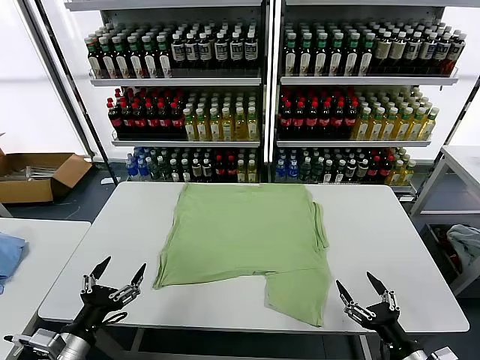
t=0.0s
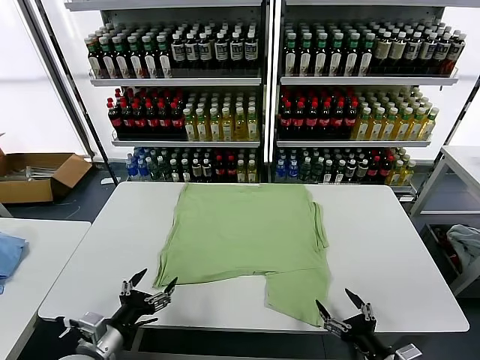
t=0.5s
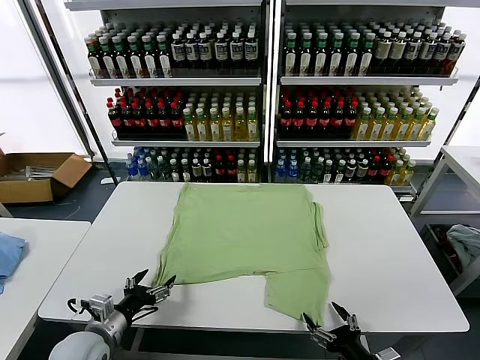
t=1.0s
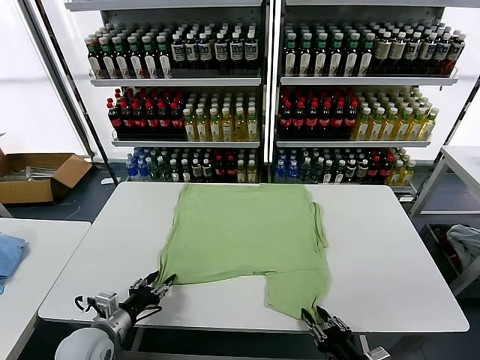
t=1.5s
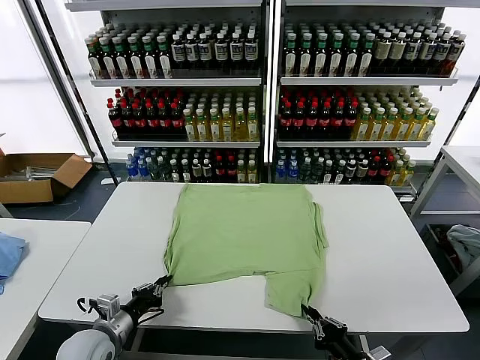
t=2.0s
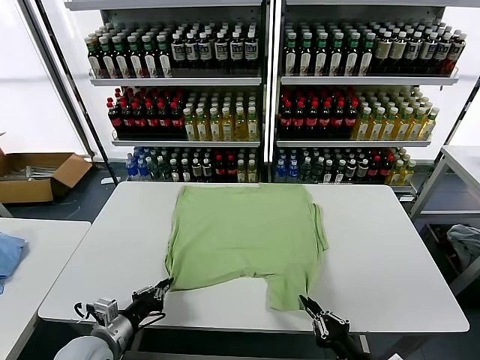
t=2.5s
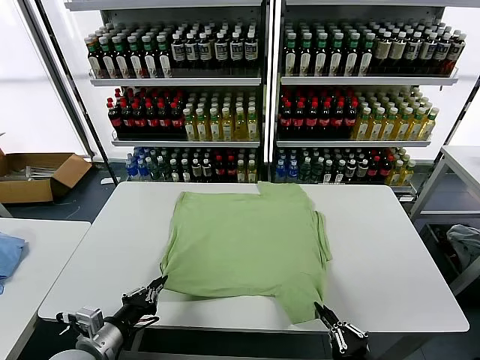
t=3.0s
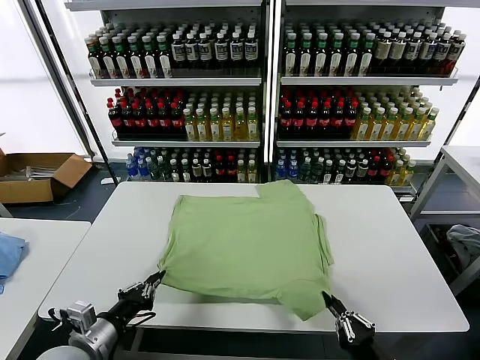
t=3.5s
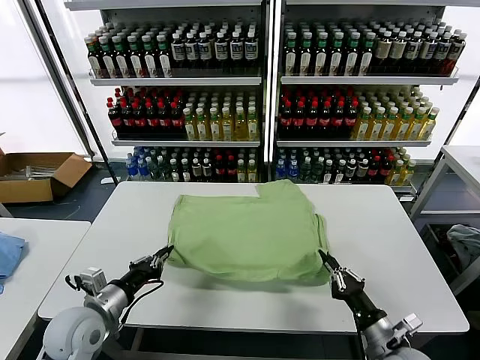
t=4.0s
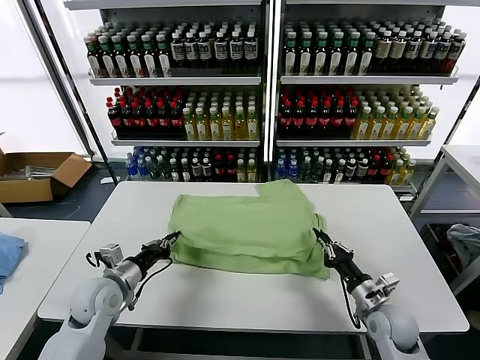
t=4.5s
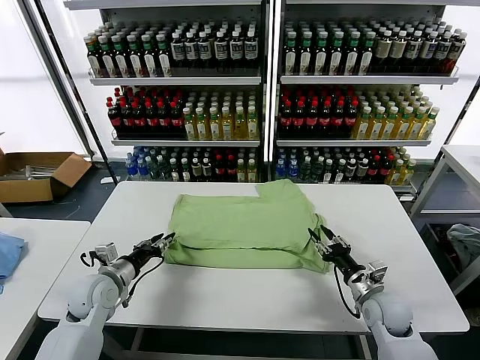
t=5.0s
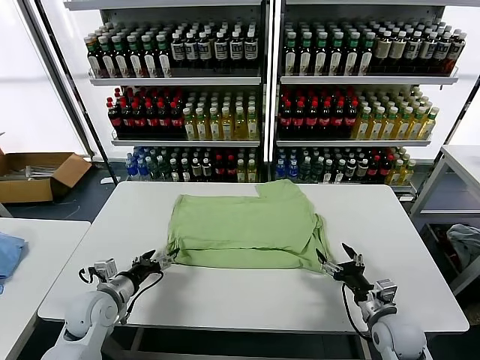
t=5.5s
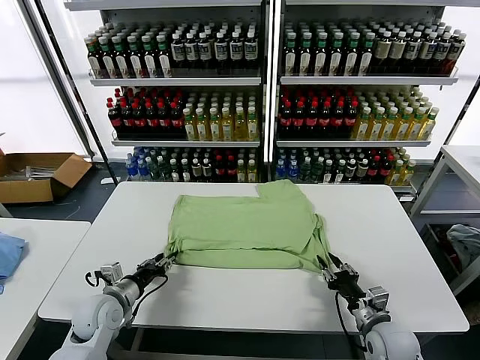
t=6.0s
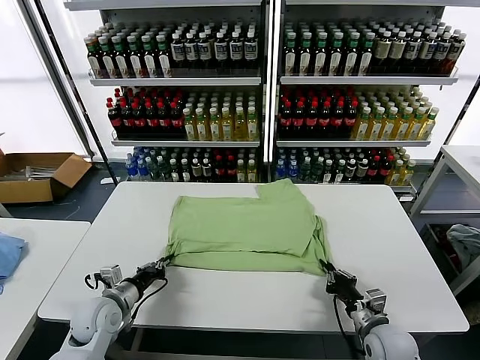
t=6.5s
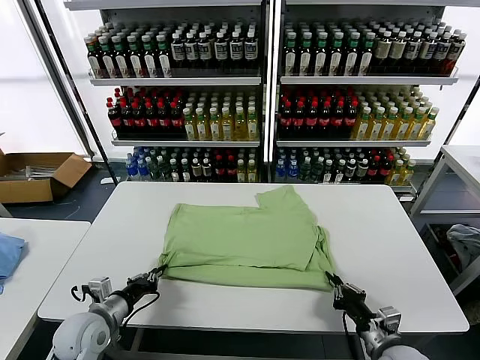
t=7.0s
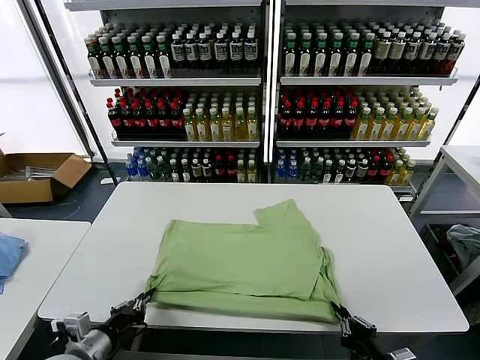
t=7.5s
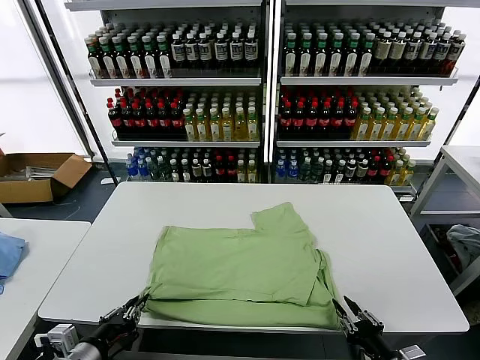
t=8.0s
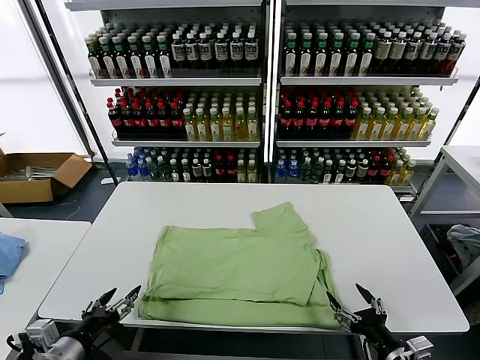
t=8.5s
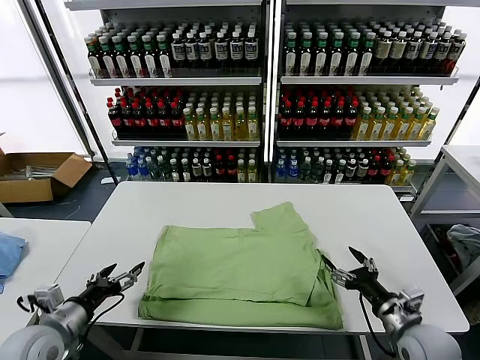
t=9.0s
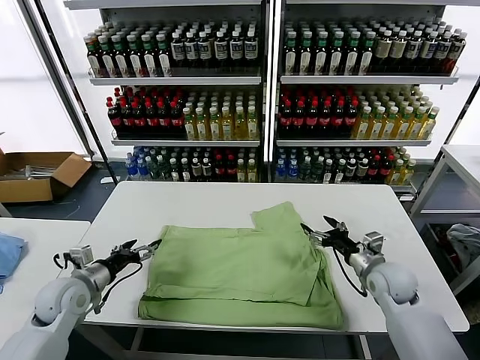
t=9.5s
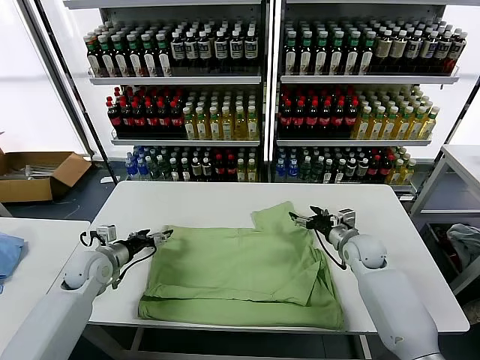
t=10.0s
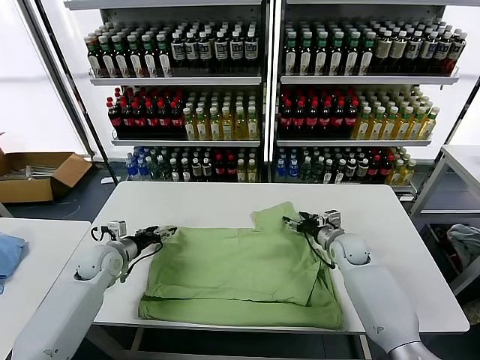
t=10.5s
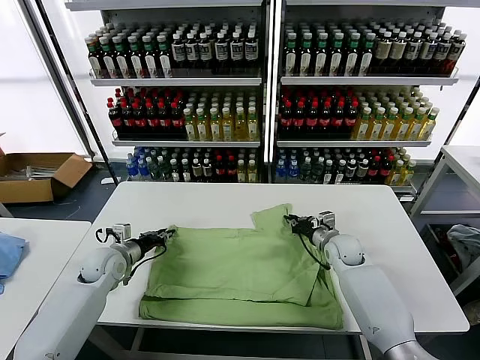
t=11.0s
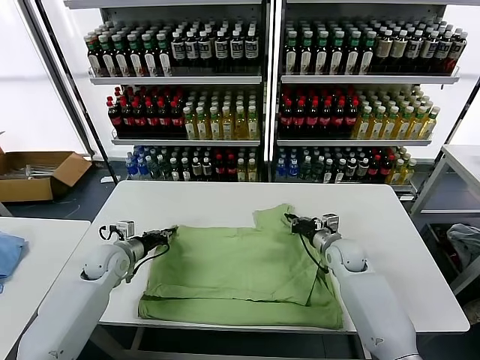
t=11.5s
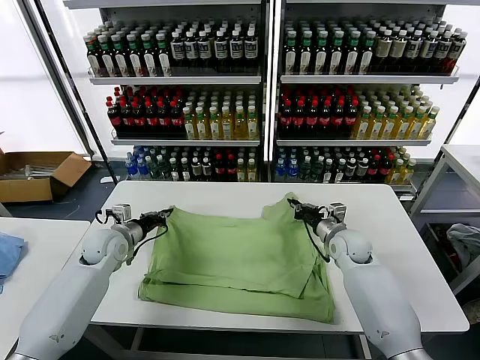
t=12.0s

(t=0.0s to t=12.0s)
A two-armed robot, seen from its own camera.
Task of the whole recording: fold and organize the clothes.
Step, t=0.0s - t=1.5s: use both grippers simultaneously to clamp the lower edge of the clothing fabric.
Step, t=2.0s - t=5.0s: use both grippers to drag the lower edge of the fabric forward and fold it over the upper edge.
Step, t=5.5s - t=8.0s: Drag the clothes downward with both gripper.
Step, t=8.5s - t=11.0s: use both grippers simultaneously to clamp the upper edge of the clothing fabric.
t=2.0s - t=4.0s: The right gripper goes approximately 10 cm forward. The left gripper moves upward, approximately 5 cm, and moves roughly 5 cm backward and comes back.
t=4.0s - t=6.0s: The left gripper heads downward, covering about 5 cm, and opens up. Meanwhile the right gripper goes forward and returns, some 10 cm each way, and opens and closes again.
t=6.0s - t=8.0s: Both grippers travel together backward, approximately 15 cm.
t=8.0s - t=10.0s: Both grippers travel together forward, some 30 cm. The left gripper opens up. The right gripper opens its fingers.
t=10.0s - t=12.0s: The right gripper closes up. Meanwhile the left gripper shifts by roughly 5 cm, and closes its fingers.

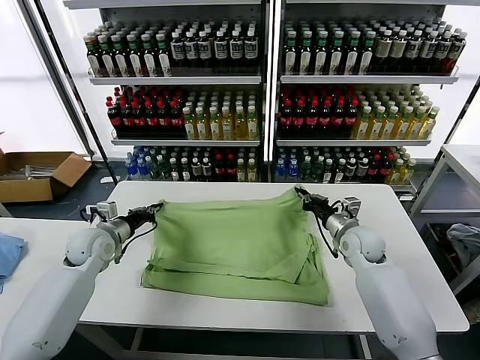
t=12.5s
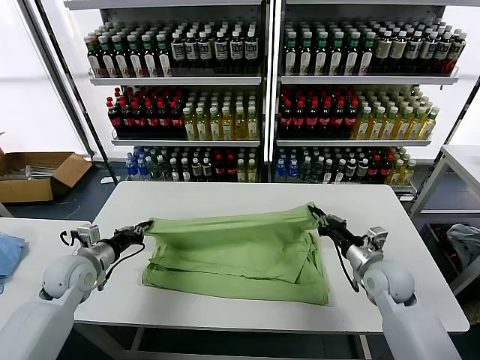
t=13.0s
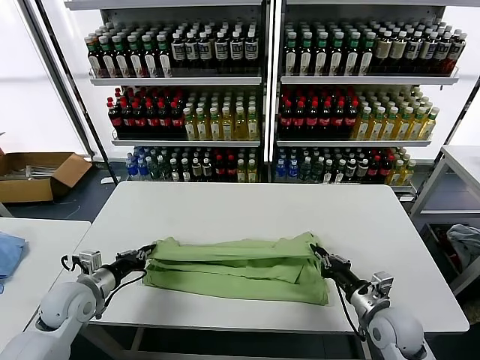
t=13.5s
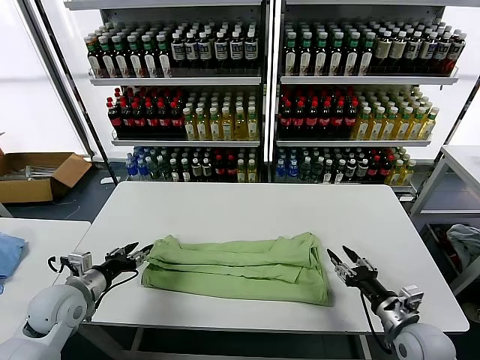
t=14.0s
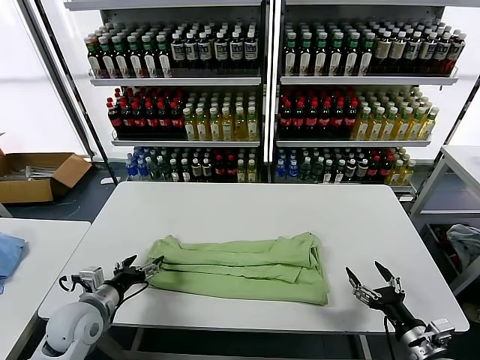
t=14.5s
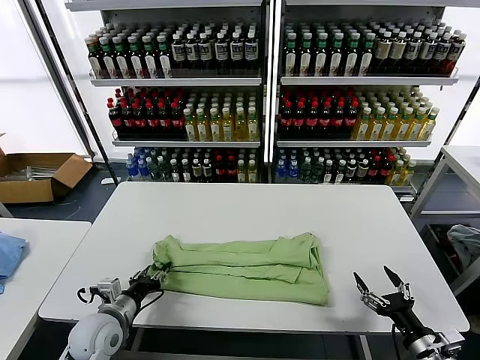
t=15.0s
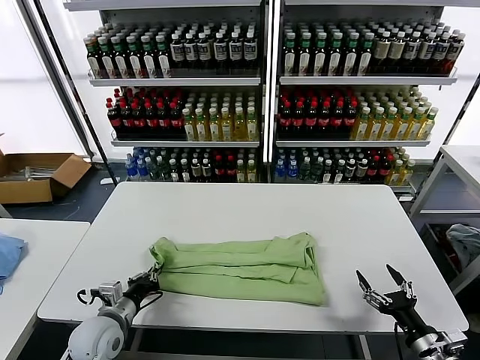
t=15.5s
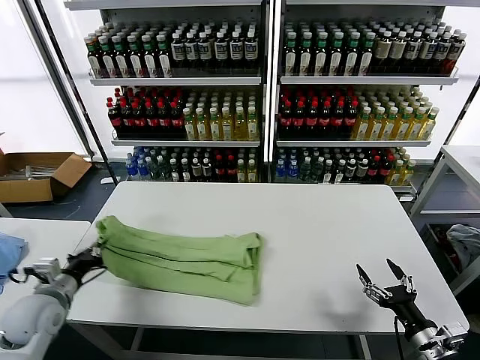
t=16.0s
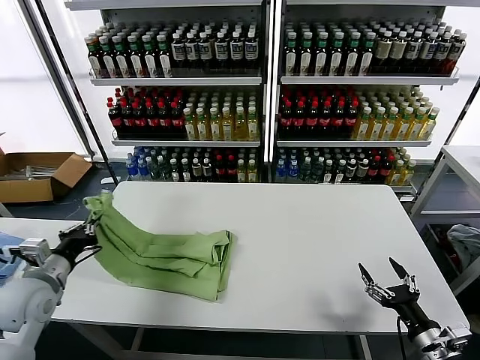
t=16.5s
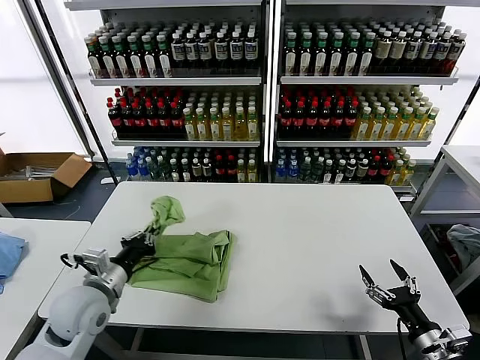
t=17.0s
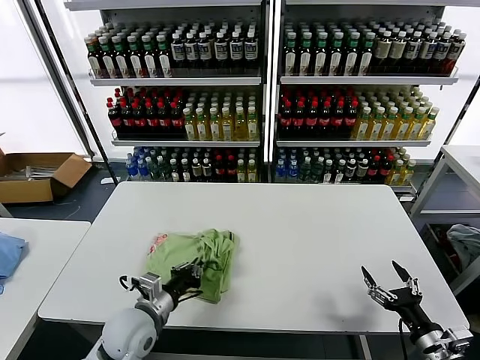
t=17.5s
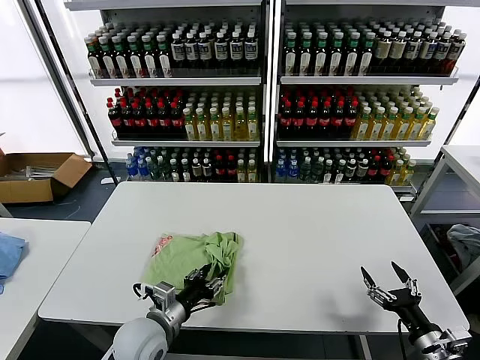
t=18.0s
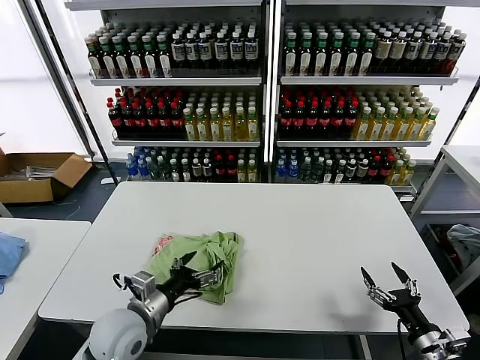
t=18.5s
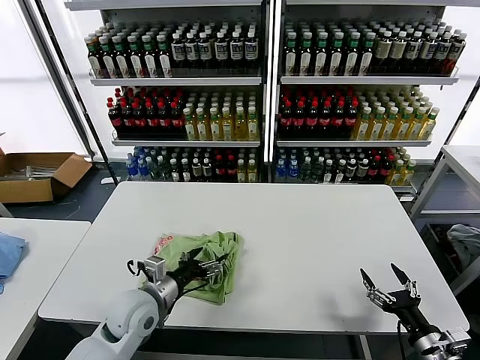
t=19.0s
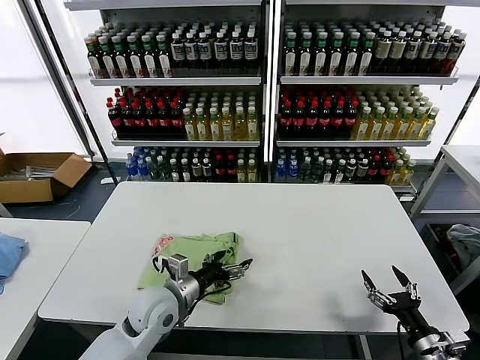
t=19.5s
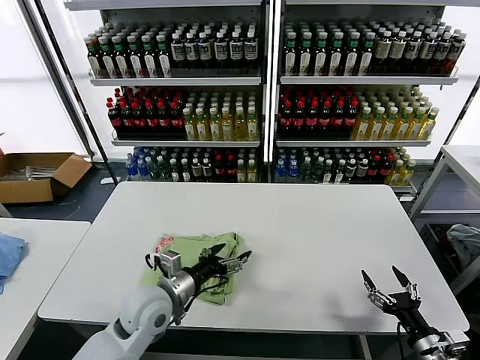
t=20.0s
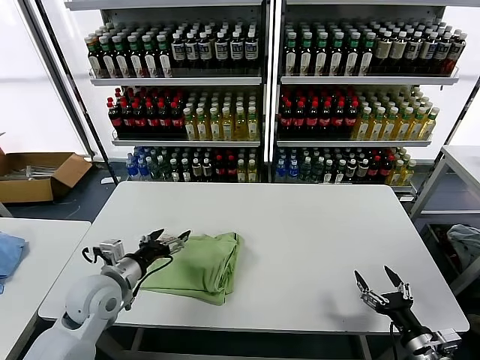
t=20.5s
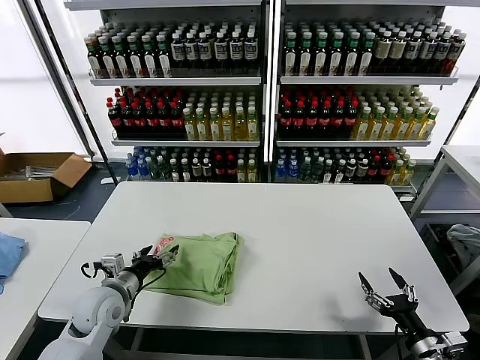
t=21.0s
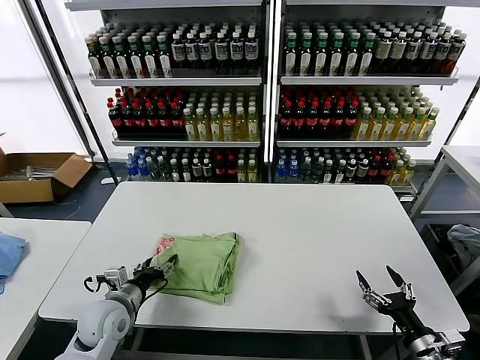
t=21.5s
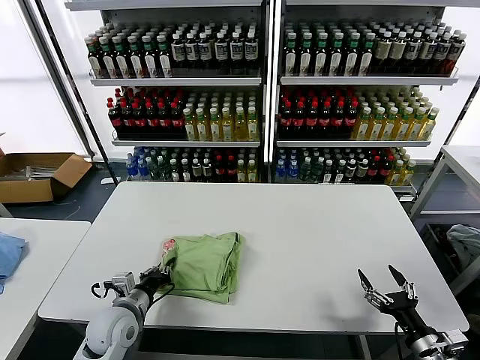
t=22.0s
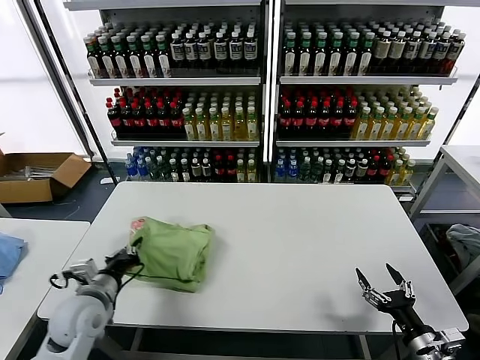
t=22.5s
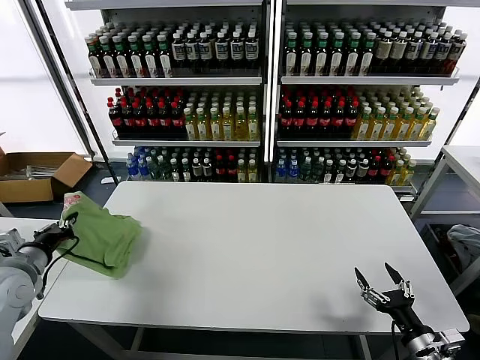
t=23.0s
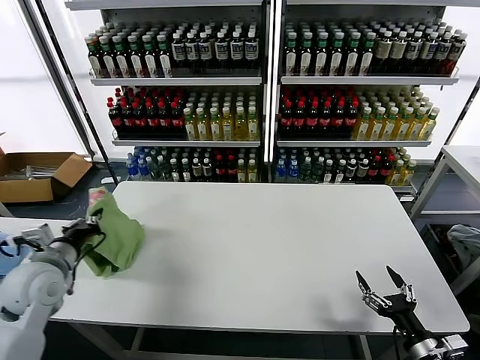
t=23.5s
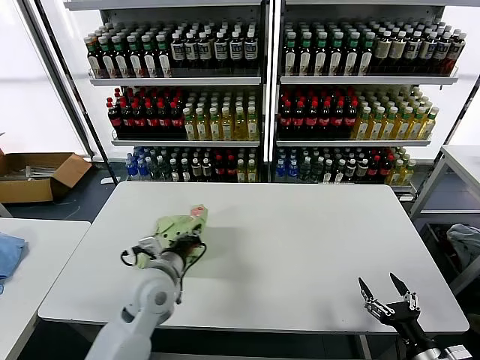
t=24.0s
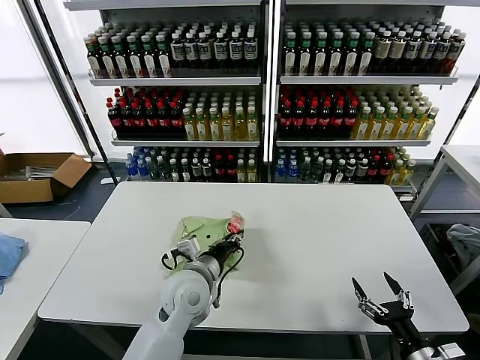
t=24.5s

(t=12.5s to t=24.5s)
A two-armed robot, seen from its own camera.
Task of the whole recording: fold and organize the clothes.
Step, t=14.0s - t=15.0s: use the left gripper to clamp the left edge of the fabric.
Step, t=15.5s - t=18.0s: use the left gripper to drag the left edge of the fabric to the left and folds it over the right edge.
t=12.5s - t=14.5s: The right gripper travels backward by approximately 30 cm, and opens up, while the left gripper is displaced backward by approximately 15 cm, and opens up.
t=14.5s - t=16.5s: The left gripper goes roughly 10 cm upward and to the left, and closes up.
t=16.5s - t=18.5s: The left gripper heads to the right, covering some 15 cm, and opens.
t=18.5s - t=20.5s: The left gripper goes approximately 10 cm to the left and forward.
t=20.5s - t=22.5s: The left gripper closes.
t=22.5s - t=24.5s: The left gripper heads to the right, covering about 20 cm.

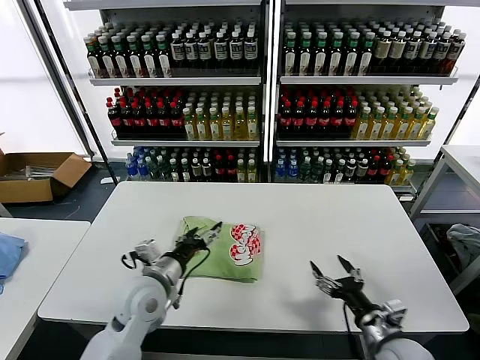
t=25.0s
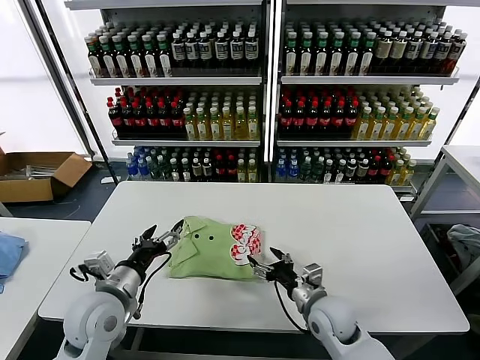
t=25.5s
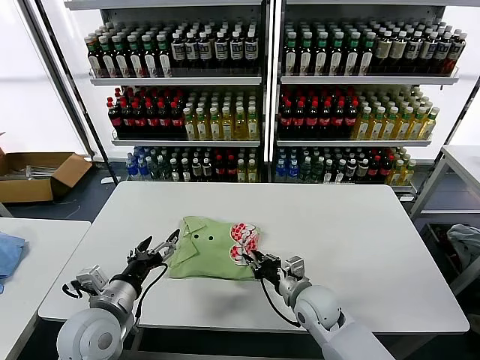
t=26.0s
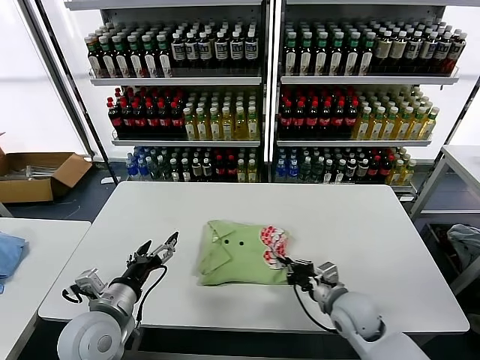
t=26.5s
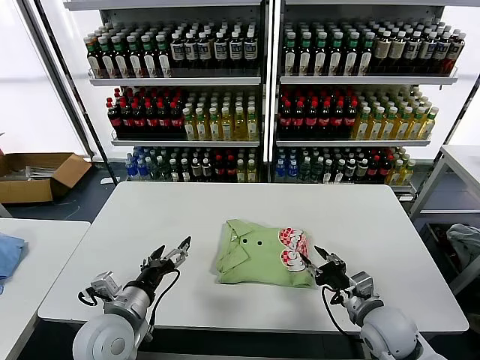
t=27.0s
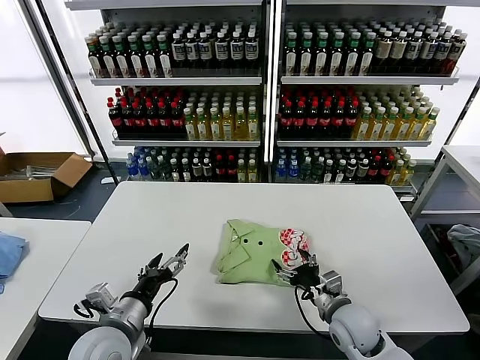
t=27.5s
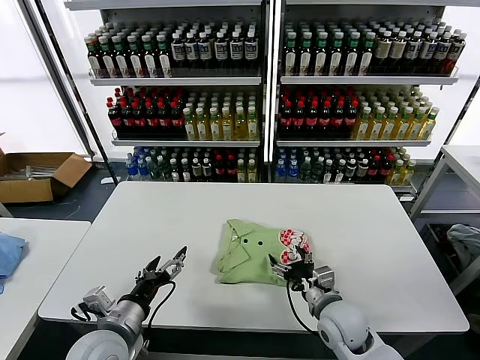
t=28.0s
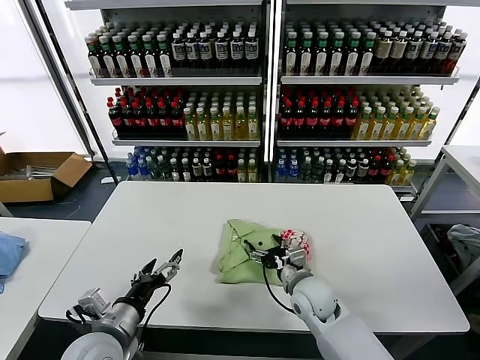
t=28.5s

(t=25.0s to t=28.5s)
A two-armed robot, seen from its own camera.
Task of the whole recording: fold and organize the clothes.
t=25.0s - t=27.0s: The left gripper travels backward and to the left by about 10 cm, while the right gripper shifts some 5 cm forward, travels to the left and back again, about 15 cm each way, and closes.
t=27.0s - t=28.5s: The right gripper goes approximately 15 cm to the left and forward, and opens its fingers.
